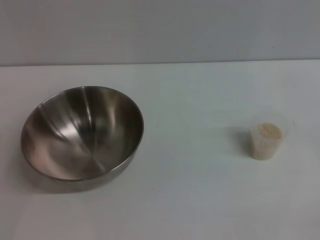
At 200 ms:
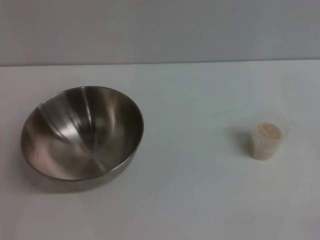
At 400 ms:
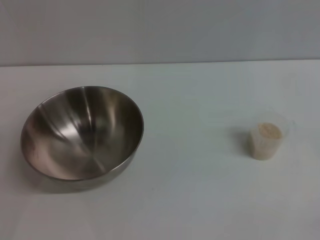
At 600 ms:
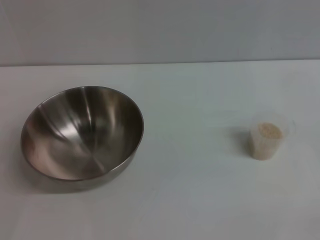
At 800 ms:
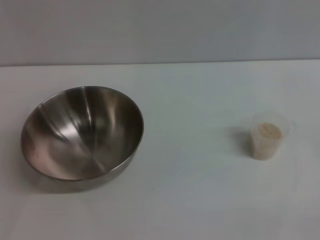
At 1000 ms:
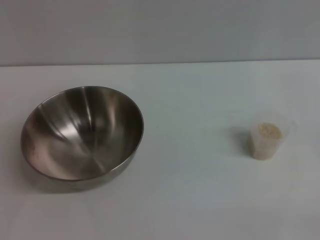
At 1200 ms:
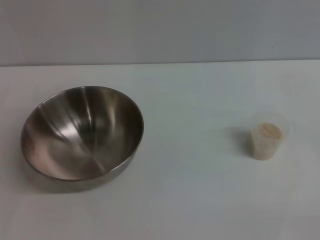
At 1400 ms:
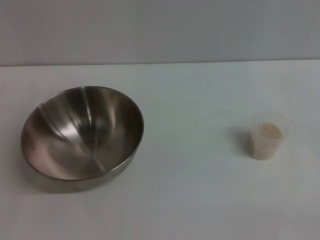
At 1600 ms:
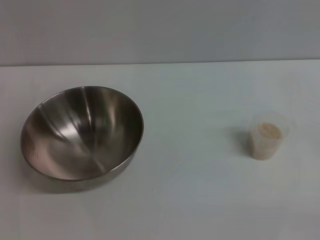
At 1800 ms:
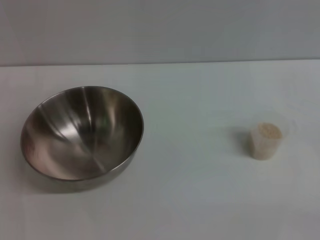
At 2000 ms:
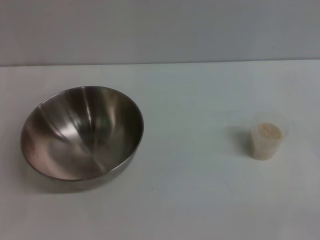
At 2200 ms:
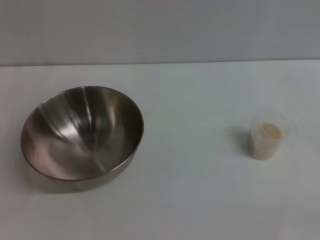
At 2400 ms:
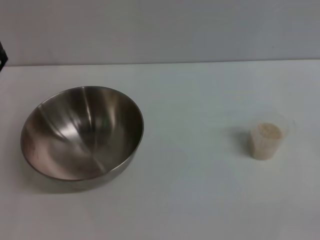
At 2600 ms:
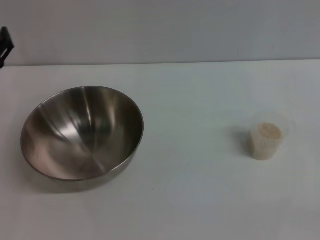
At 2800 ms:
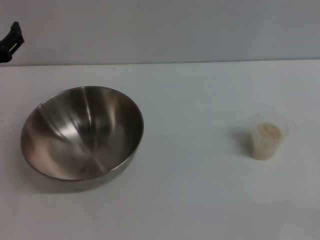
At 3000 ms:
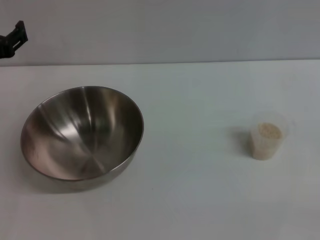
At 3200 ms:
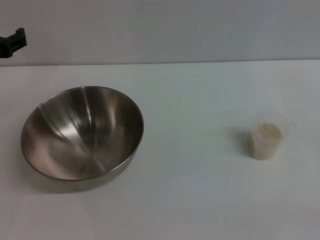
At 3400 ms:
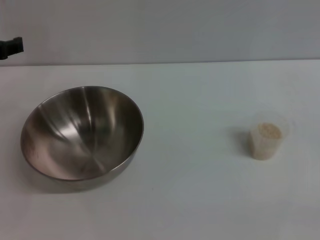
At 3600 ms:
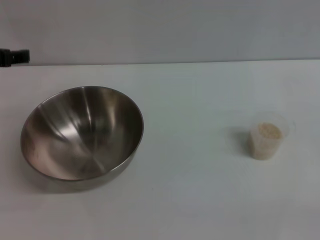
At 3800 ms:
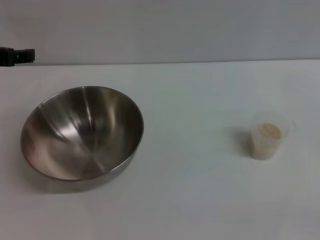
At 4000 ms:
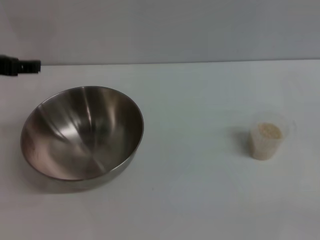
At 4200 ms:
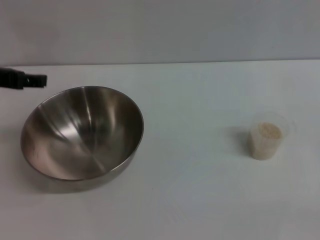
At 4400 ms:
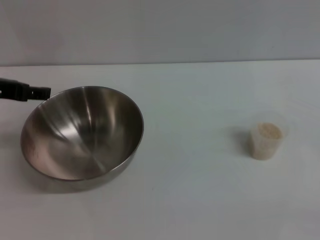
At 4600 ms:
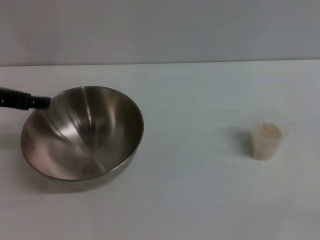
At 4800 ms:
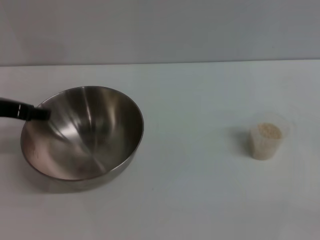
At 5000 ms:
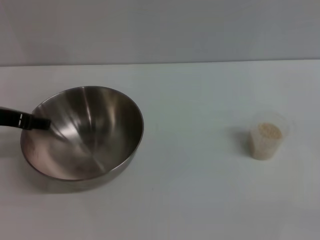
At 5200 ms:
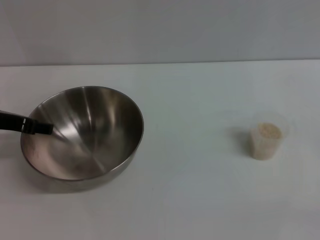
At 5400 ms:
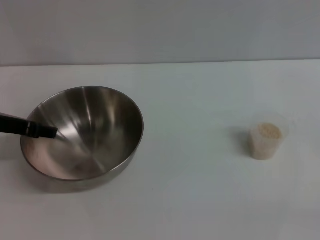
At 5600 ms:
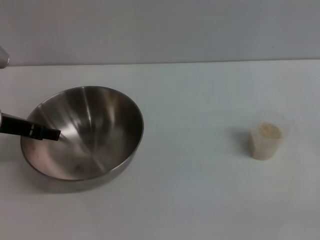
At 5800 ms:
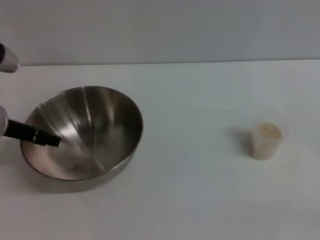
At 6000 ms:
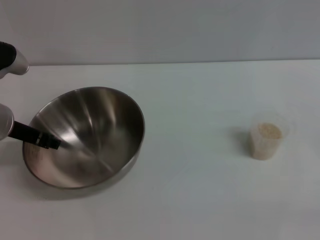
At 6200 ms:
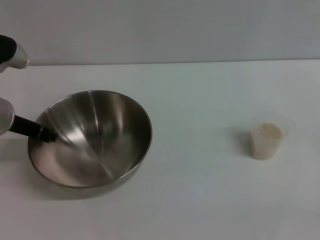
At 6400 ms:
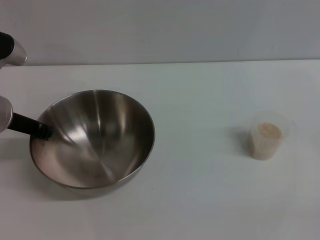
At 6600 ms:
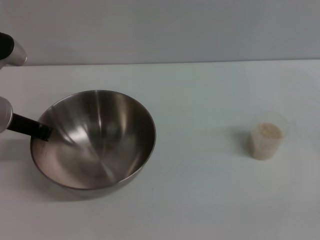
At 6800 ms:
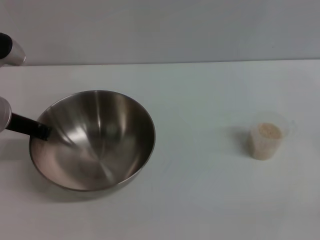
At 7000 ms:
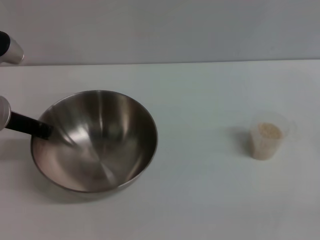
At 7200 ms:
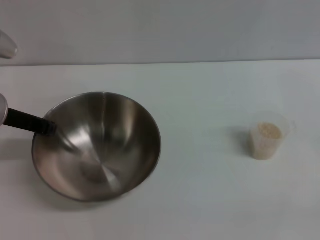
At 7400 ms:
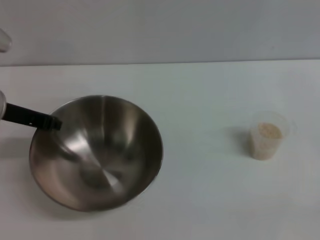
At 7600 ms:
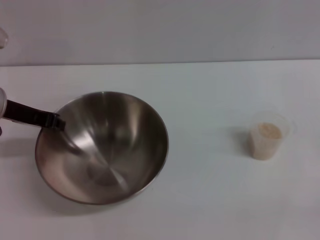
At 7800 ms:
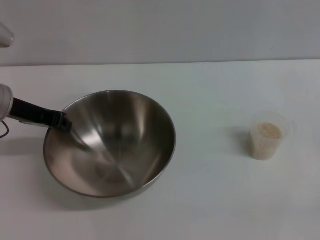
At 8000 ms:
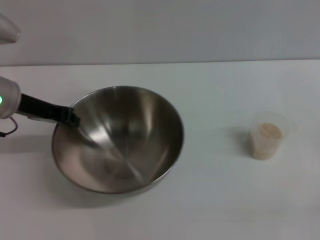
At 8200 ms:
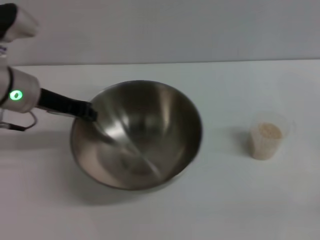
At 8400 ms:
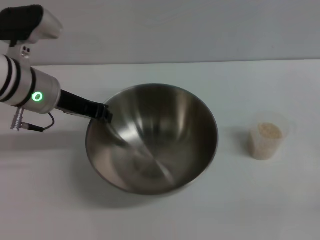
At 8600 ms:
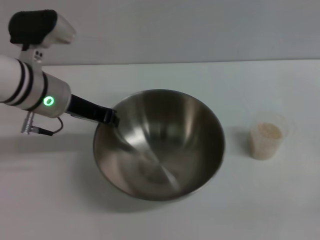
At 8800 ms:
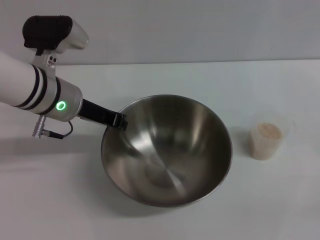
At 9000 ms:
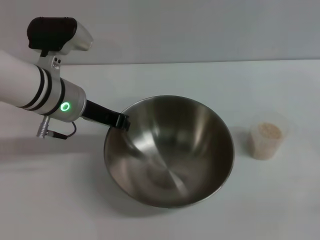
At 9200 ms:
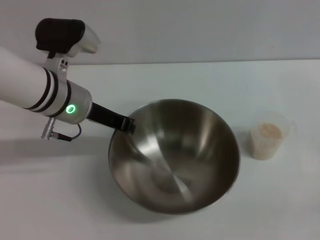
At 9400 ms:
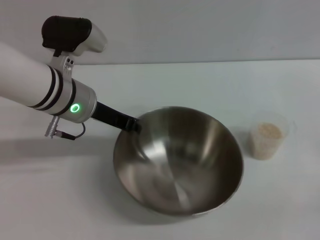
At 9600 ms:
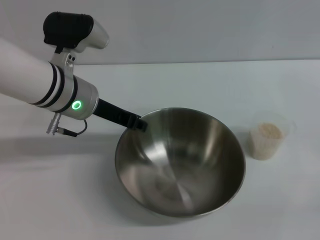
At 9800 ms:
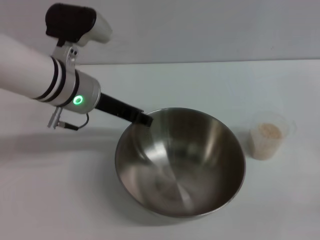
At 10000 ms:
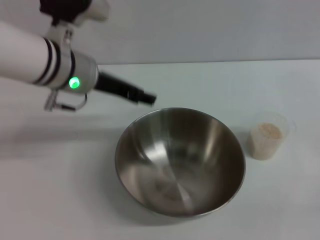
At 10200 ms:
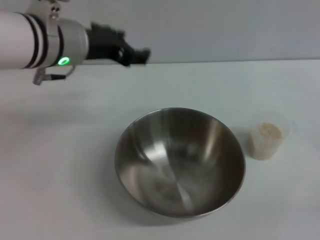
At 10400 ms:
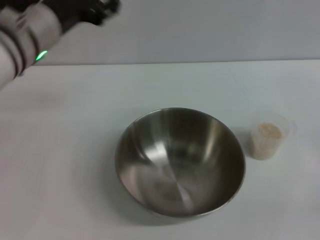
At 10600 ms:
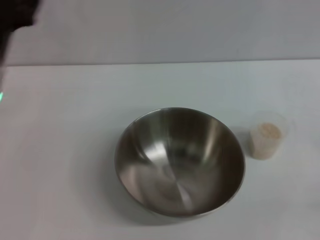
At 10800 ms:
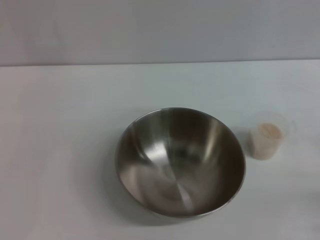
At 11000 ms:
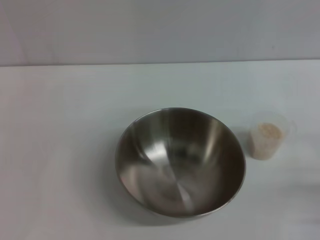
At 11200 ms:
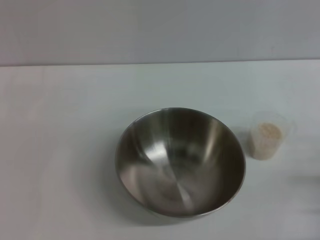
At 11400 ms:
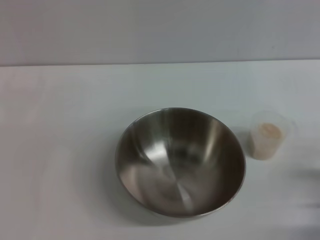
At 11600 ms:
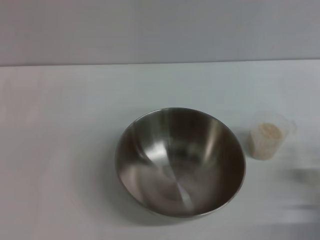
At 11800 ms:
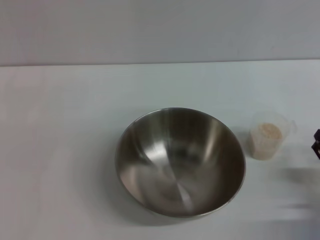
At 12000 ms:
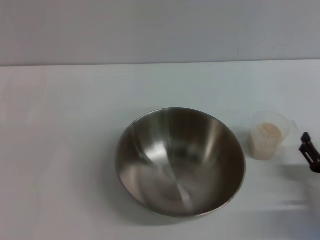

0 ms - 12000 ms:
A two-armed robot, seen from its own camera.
Task of the whole recording: Place the bowl in the middle of the table with one hand and pour the rice from the grain cup into it with the other hand.
Step, 0 ms - 7600 ms: Pick up the bowl with the left gripper.
Step, 8000 ms - 10000 ms: Place the bowl in the center of view with the left gripper.
1600 ms - 3000 ms: The left gripper heads upward and forward, covering some 15 cm.
3000 ms - 4400 ms: The left gripper heads upward, covering approximately 5 cm.
4400 ms - 6000 ms: The left gripper shifts roughly 5 cm downward.
6000 ms - 7600 ms: The left gripper closes its fingers.
7600 ms - 9000 ms: The left gripper heads to the right, covering approximately 10 cm.
9000 ms - 10400 ms: The left gripper travels upward by some 5 cm, and opens its fingers.
10400 ms - 12000 ms: The left gripper shifts about 25 cm downward, to the left and backward, while the right gripper travels forward and to the left by roughly 10 cm.

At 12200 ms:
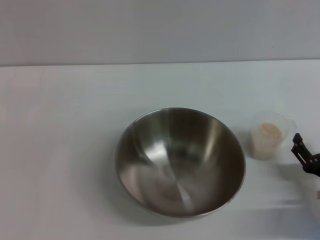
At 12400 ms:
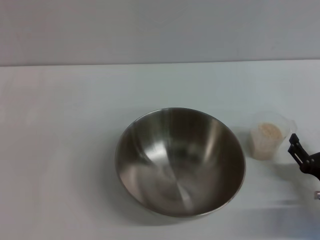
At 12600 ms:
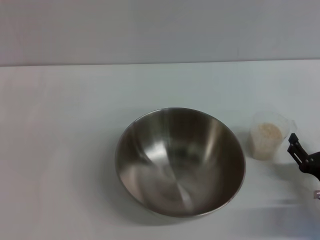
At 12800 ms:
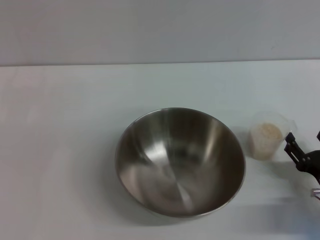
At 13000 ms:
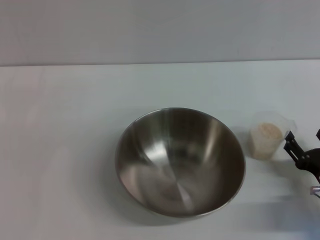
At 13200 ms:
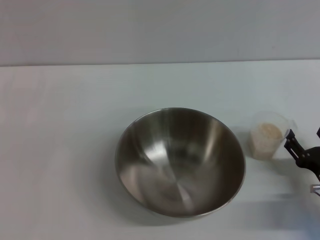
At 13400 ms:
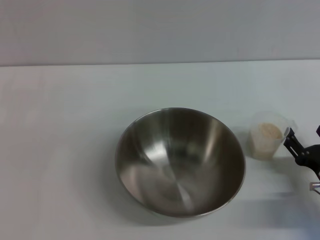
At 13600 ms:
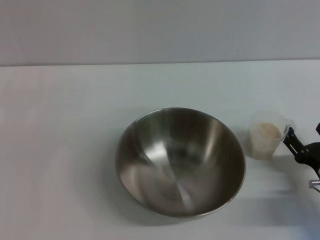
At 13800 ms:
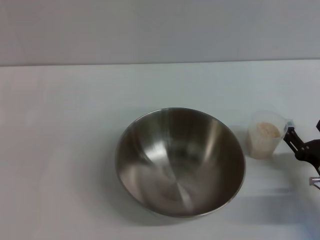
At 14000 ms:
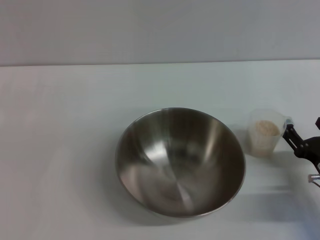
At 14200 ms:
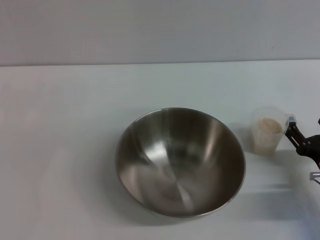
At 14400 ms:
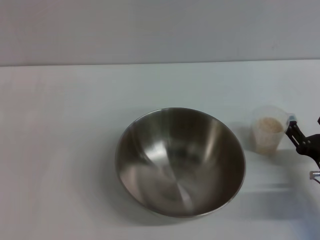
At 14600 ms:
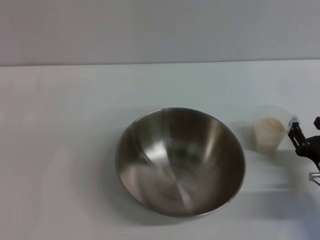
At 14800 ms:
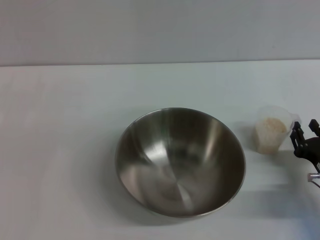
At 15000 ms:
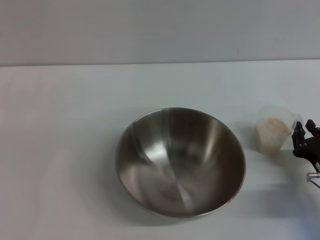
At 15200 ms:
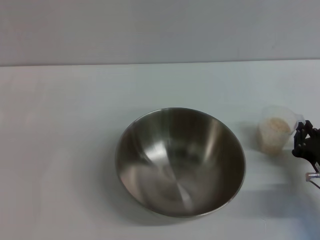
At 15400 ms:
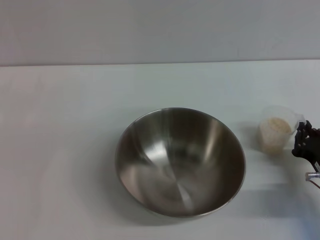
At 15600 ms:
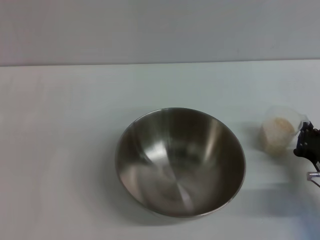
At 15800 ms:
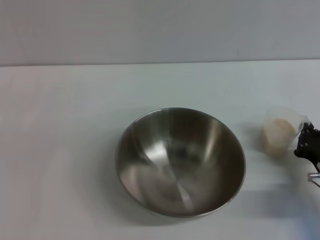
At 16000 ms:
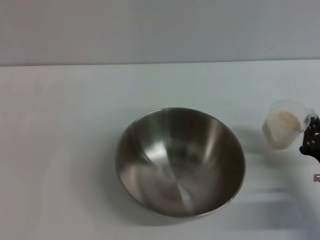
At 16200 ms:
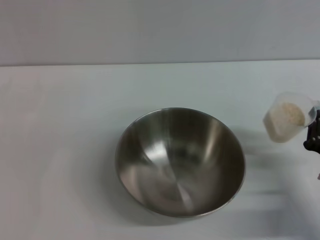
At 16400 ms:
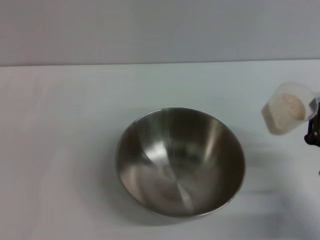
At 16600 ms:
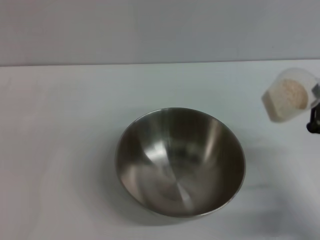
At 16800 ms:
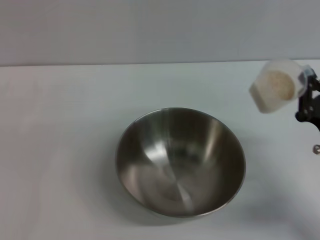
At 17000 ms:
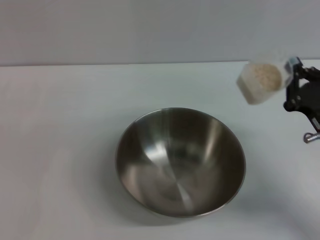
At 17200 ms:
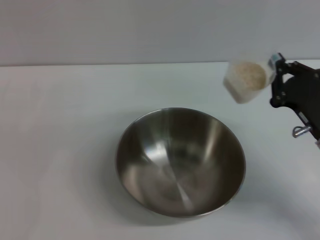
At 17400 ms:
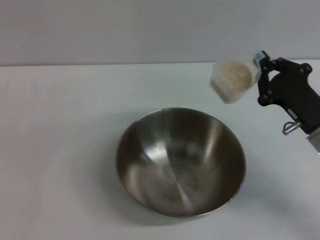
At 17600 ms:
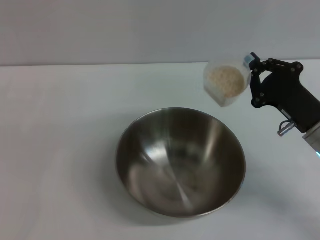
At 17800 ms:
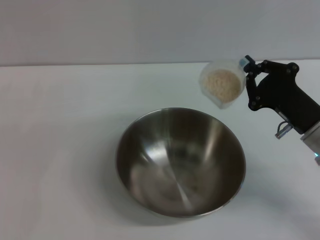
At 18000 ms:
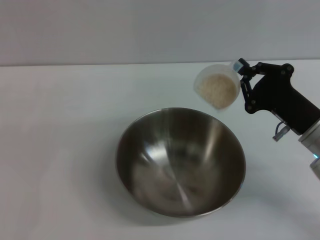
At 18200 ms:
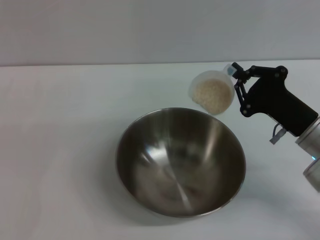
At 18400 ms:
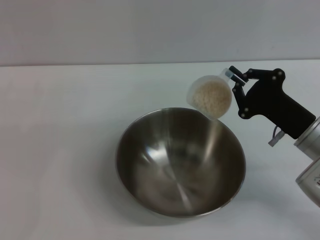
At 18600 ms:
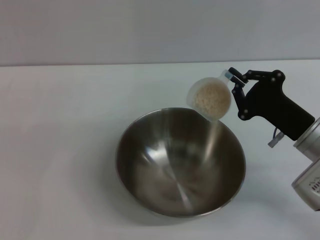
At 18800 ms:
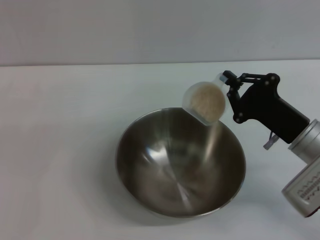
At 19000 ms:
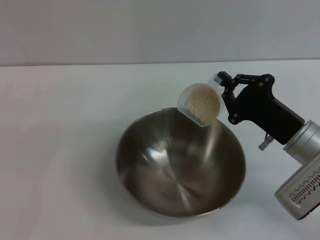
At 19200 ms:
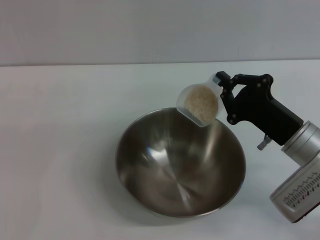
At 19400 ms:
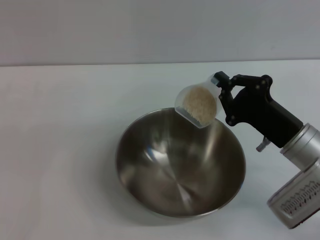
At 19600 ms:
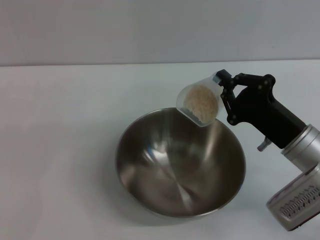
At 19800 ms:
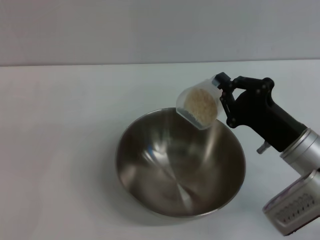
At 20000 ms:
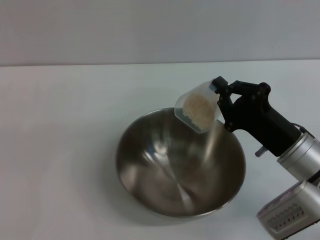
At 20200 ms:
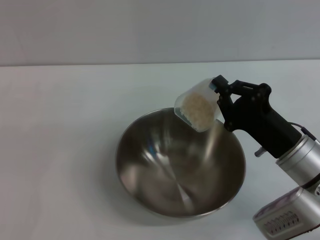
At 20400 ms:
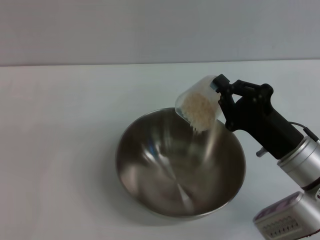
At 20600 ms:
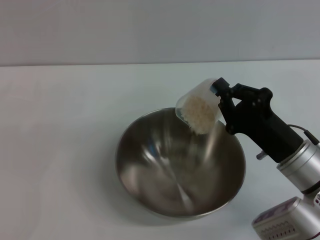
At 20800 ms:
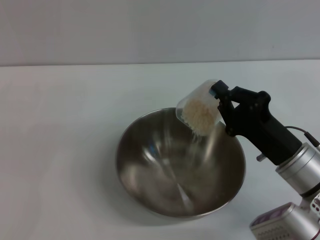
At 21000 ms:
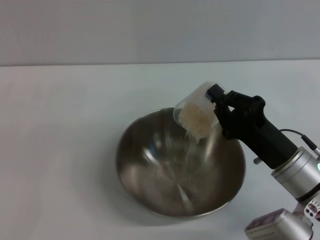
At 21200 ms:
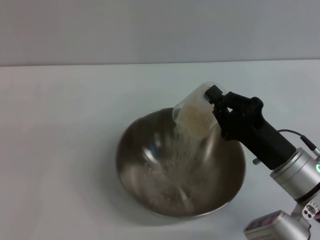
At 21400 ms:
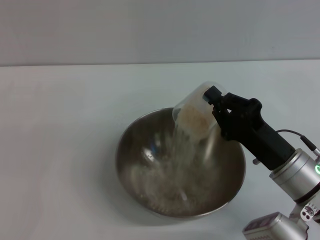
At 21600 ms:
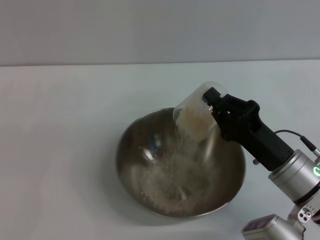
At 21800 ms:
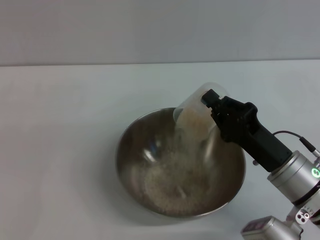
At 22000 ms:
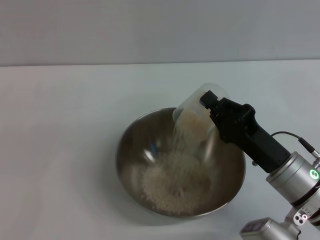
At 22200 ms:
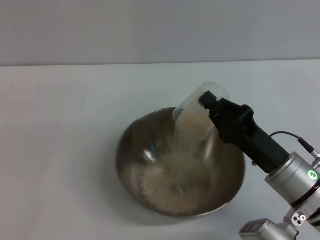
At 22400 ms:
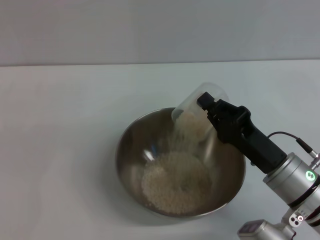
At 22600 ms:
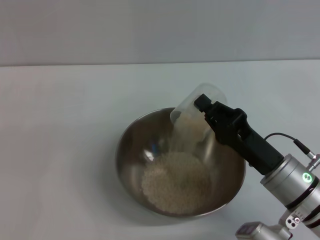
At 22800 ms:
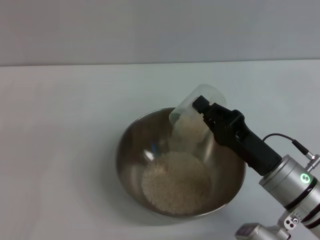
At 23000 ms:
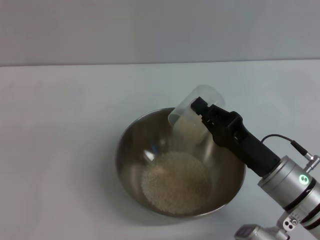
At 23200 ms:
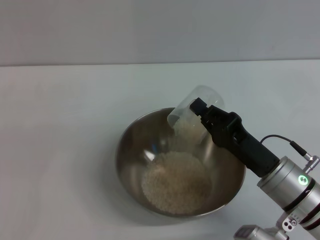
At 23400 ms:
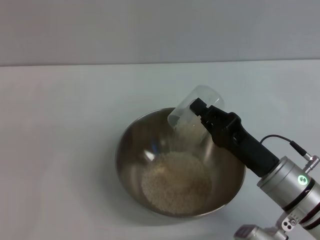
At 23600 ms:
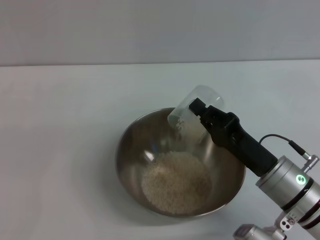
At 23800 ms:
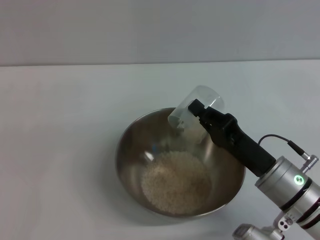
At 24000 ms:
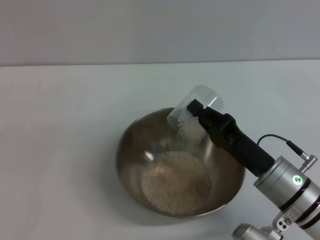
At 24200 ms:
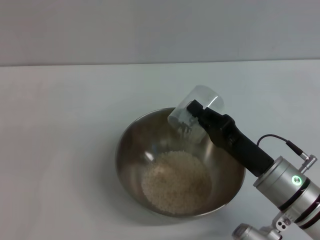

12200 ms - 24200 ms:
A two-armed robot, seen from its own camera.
Task of the whole recording: Place the bowl in the middle of the table with one hand and pour the rice from the grain cup into it with the other hand.
Step, 12200 ms - 16200 ms: Pick up the cup with rice in it with the right gripper.
12200 ms - 13800 ms: The grippers make only small movements.
13800 ms - 15200 ms: The right gripper closes.
16600 ms - 18200 ms: The right gripper heads forward, covering roughly 5 cm.
21200 ms - 22600 ms: The grippers stay close to where they were, moving slightly.
22600 ms - 24200 ms: The grippers move only a little.
